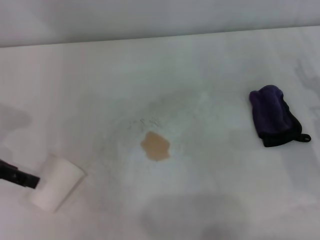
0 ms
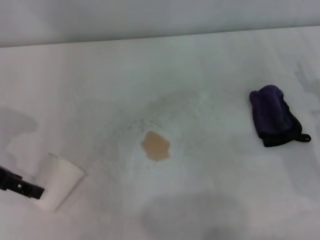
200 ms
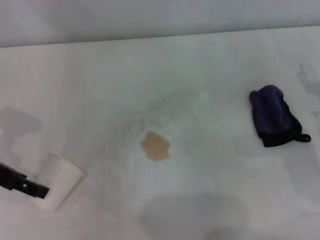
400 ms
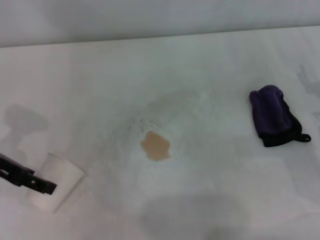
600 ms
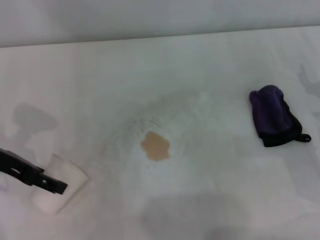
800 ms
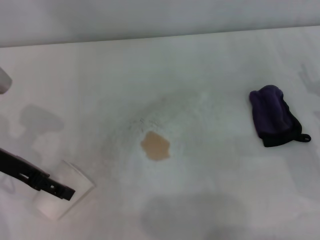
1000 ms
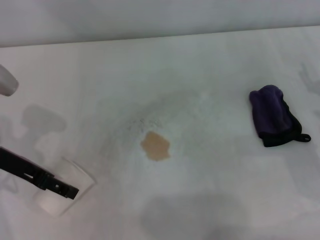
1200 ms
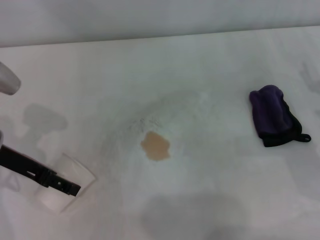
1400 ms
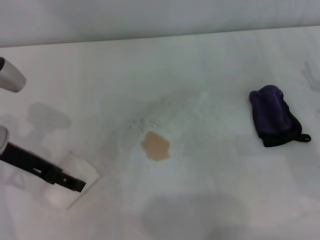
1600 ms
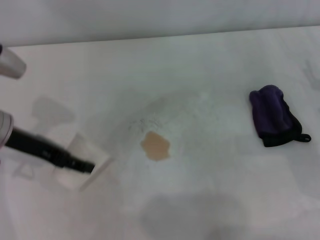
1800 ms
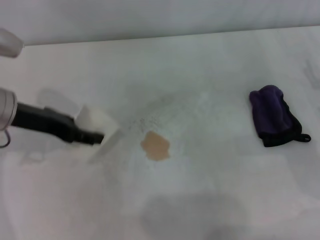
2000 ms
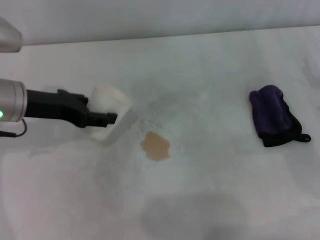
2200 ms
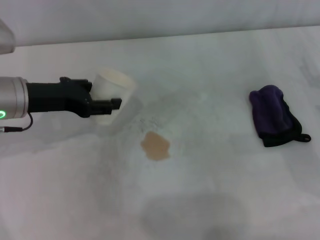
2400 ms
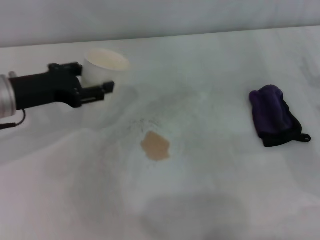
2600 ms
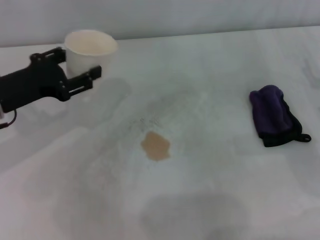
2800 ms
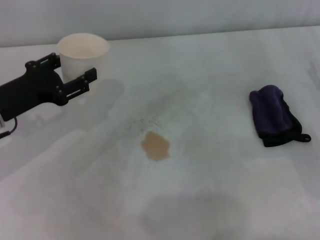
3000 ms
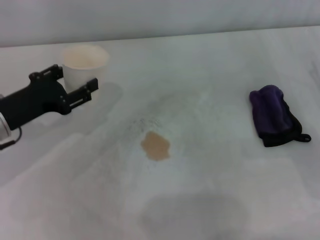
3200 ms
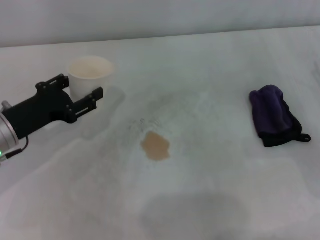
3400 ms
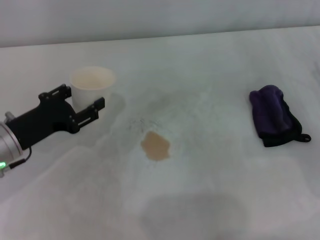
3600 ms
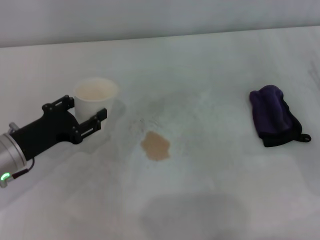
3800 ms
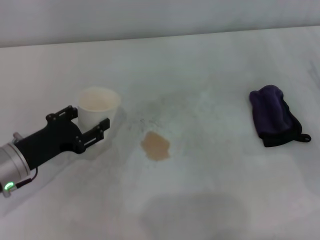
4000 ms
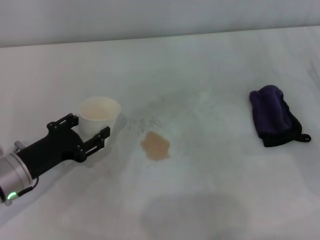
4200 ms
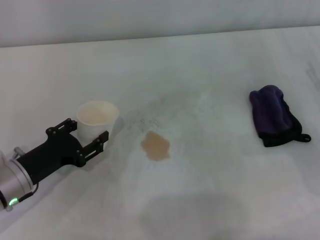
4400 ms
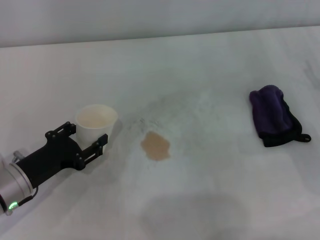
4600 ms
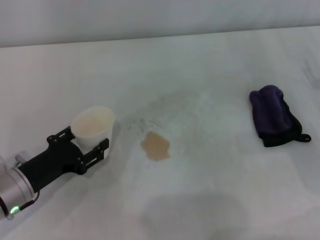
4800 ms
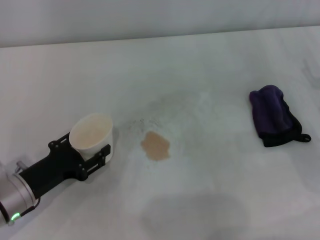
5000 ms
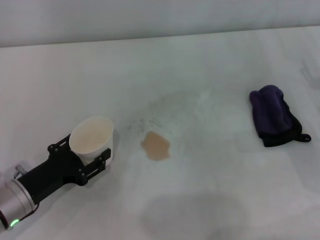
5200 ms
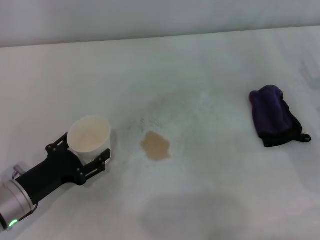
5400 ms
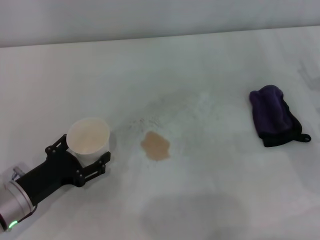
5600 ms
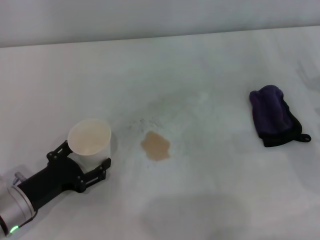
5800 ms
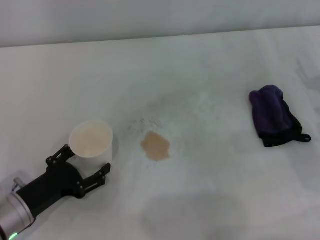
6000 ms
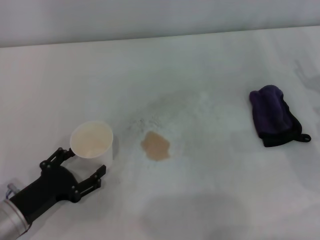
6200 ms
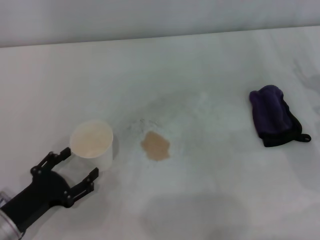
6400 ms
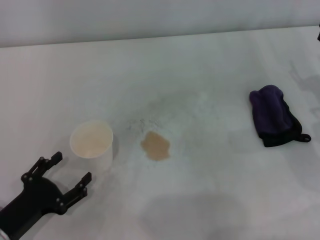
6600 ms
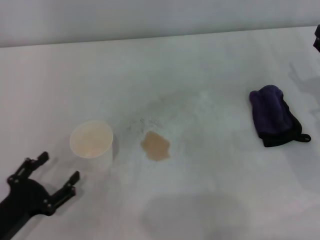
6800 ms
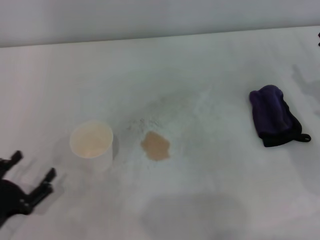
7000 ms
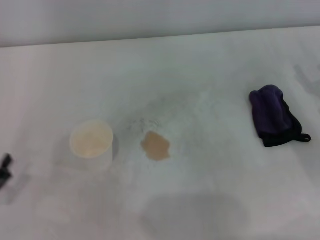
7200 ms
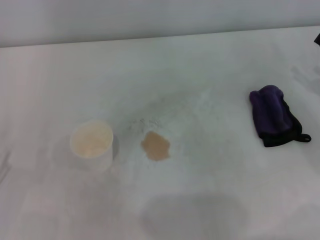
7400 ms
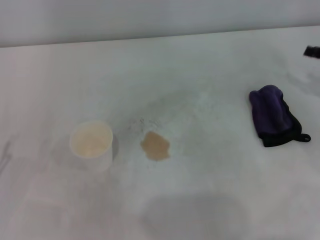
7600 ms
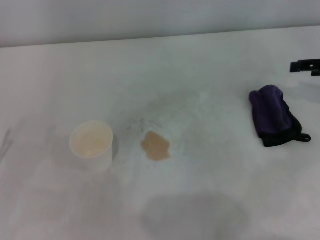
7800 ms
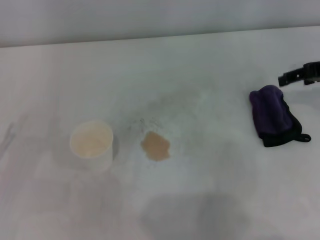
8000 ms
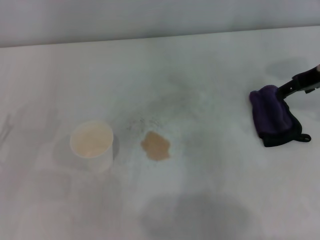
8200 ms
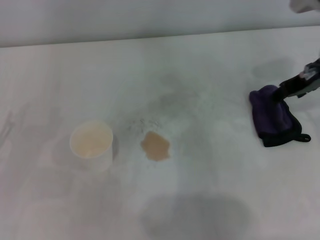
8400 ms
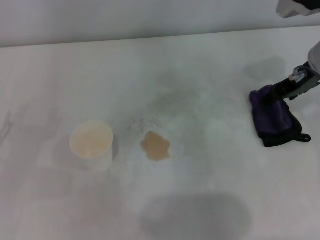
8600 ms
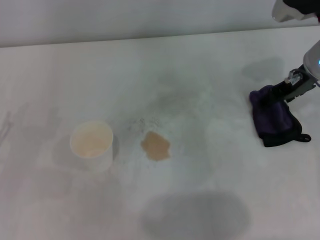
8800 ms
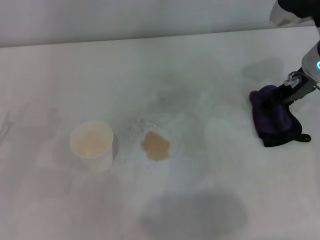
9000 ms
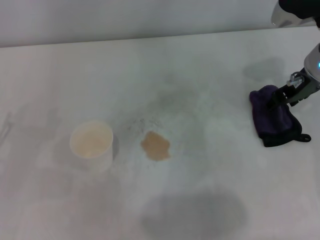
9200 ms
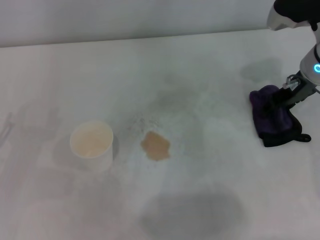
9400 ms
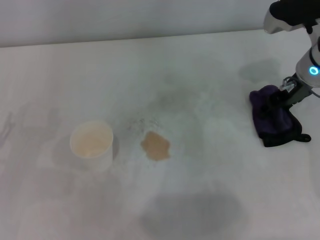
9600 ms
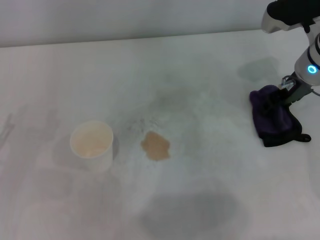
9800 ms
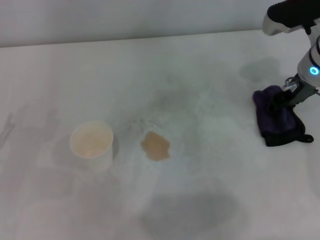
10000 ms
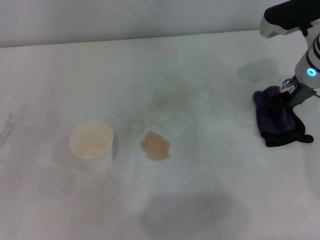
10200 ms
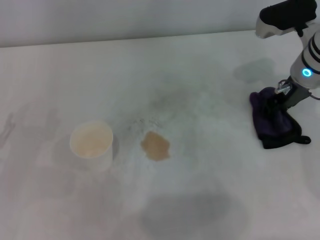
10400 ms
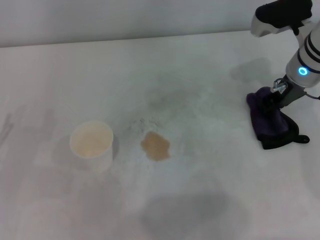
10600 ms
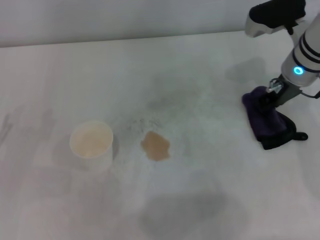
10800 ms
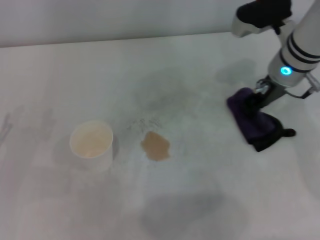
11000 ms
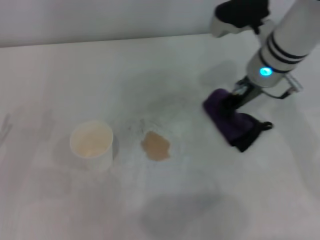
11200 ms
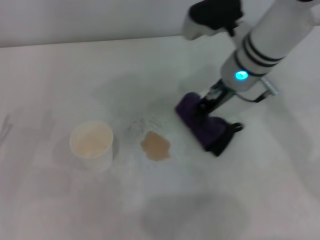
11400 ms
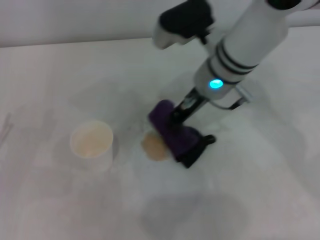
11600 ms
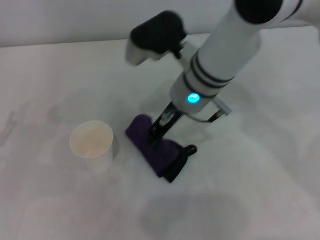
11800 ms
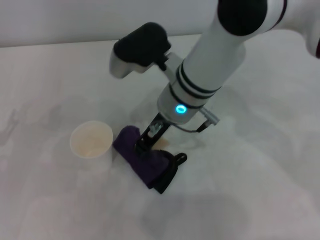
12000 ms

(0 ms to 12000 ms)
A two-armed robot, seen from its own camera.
Step, 1600 ms - 6000 ms: Stand the paper cup upright with the left gripper.
Step, 6200 ms - 10000 ms: Grasp the rag with the right gripper.
0 ms - 1600 ms: The left gripper shifts approximately 5 cm to the right.
1600 ms - 3000 ms: The left gripper closes its fingers.
3000 ms - 4400 ms: The left gripper moves downward and backward, roughly 10 cm.
4400 ms - 6000 ms: The left gripper opens up.
6000 ms - 7600 ms: The left gripper travels to the left by about 10 cm.
7600 ms - 9000 ms: The right gripper travels to the left and forward by about 15 cm.
9000 ms - 10400 ms: The right gripper closes its fingers.
10400 ms - 12000 ms: The right gripper heads to the left, covering some 20 cm, and closes.

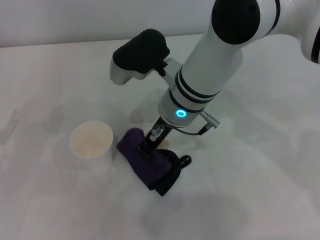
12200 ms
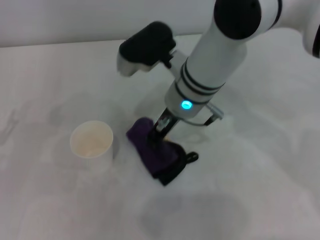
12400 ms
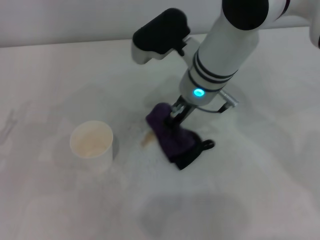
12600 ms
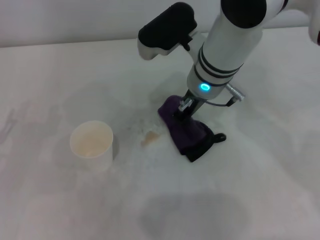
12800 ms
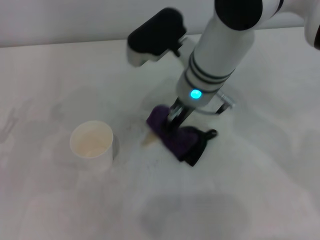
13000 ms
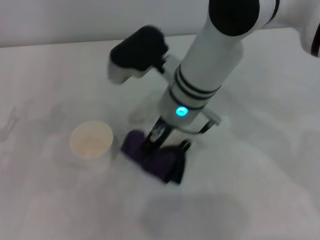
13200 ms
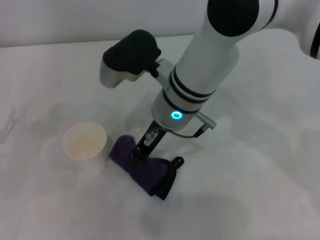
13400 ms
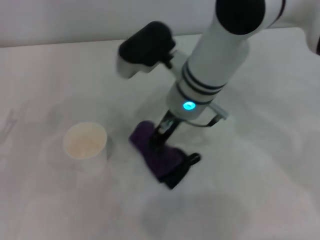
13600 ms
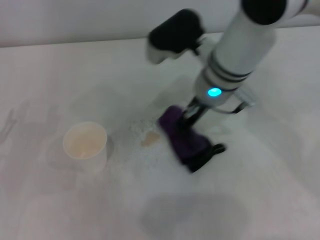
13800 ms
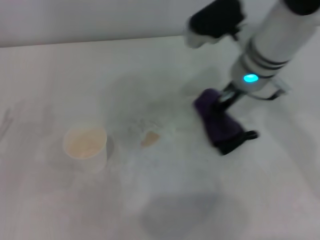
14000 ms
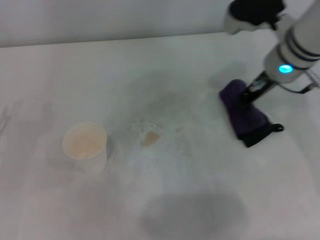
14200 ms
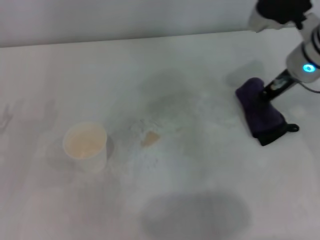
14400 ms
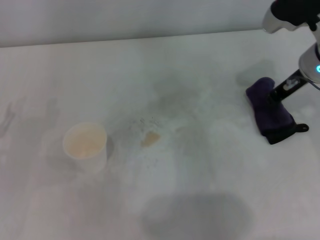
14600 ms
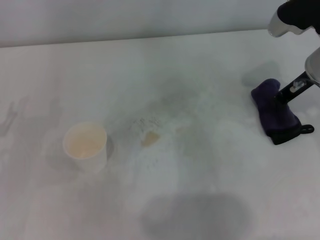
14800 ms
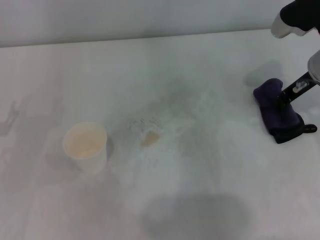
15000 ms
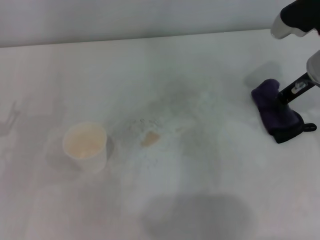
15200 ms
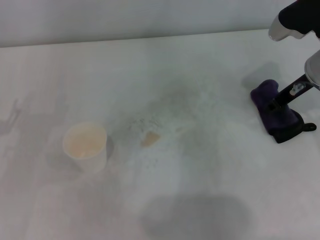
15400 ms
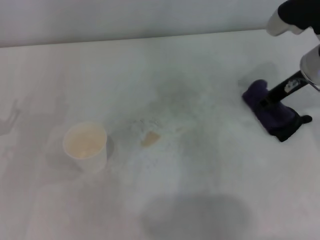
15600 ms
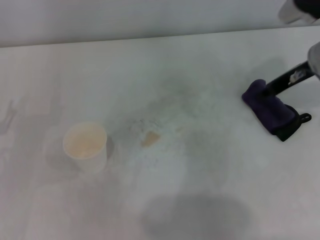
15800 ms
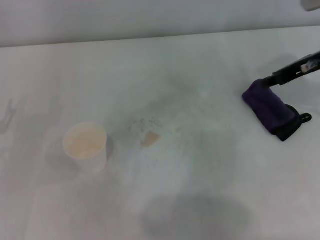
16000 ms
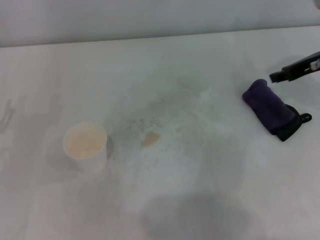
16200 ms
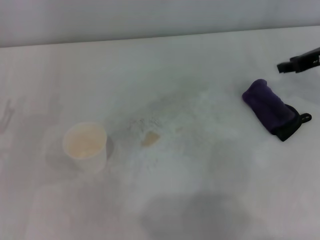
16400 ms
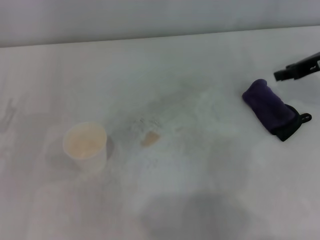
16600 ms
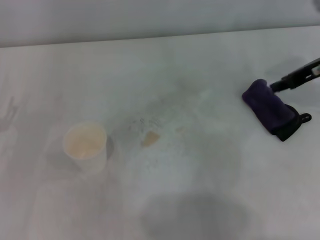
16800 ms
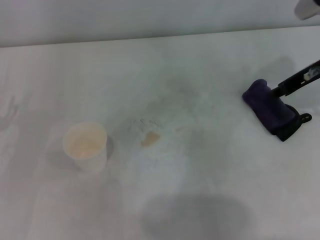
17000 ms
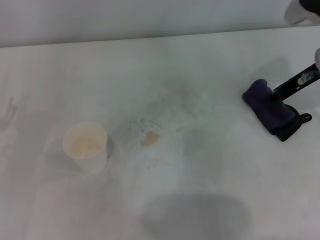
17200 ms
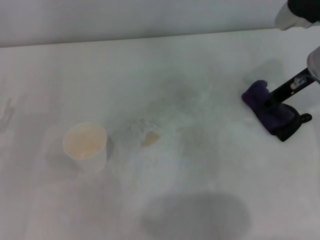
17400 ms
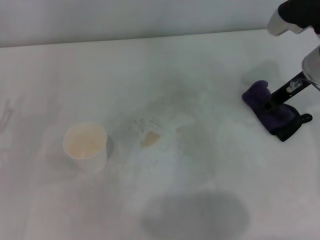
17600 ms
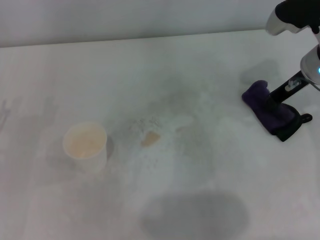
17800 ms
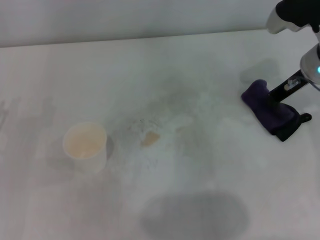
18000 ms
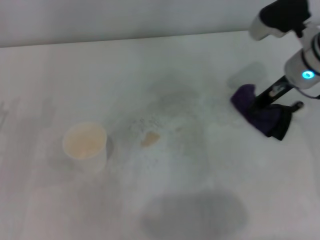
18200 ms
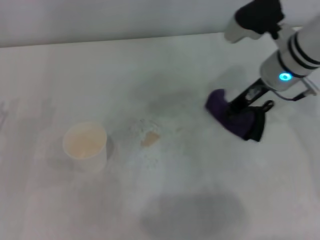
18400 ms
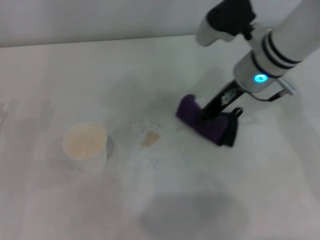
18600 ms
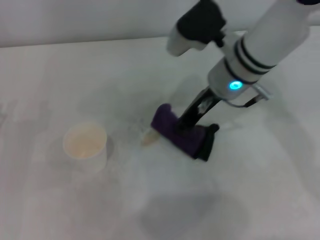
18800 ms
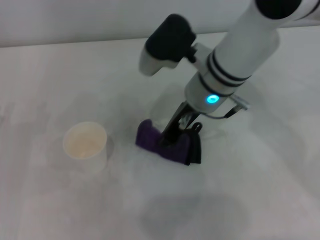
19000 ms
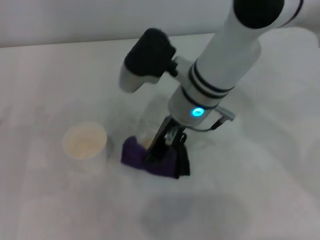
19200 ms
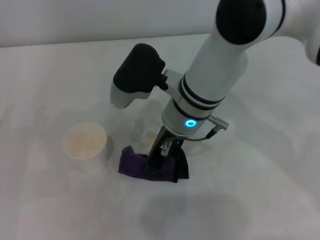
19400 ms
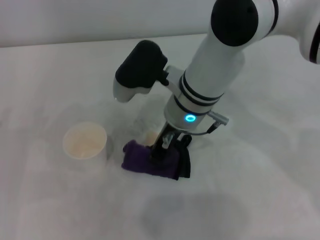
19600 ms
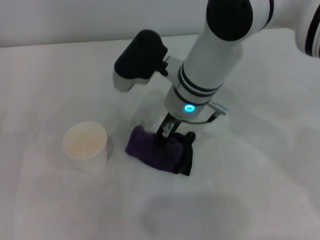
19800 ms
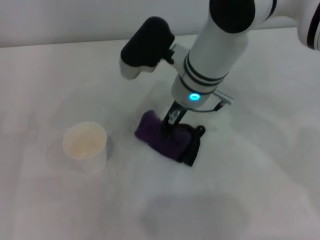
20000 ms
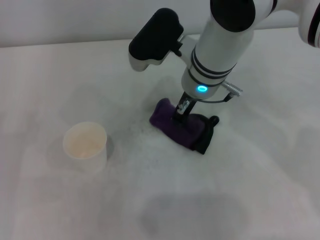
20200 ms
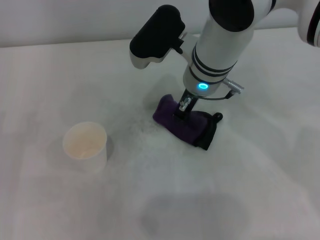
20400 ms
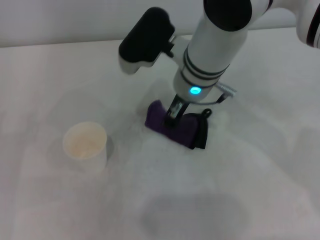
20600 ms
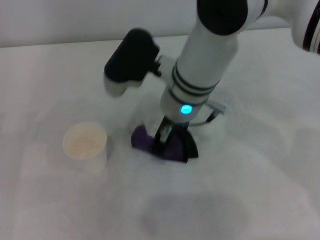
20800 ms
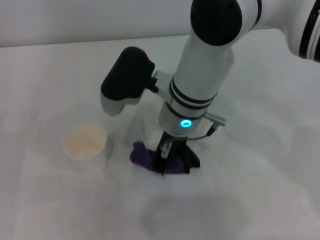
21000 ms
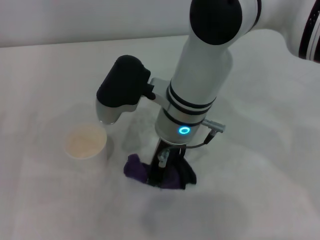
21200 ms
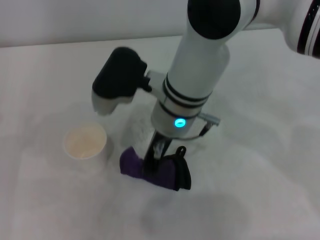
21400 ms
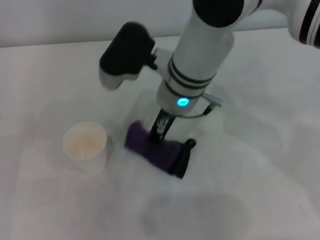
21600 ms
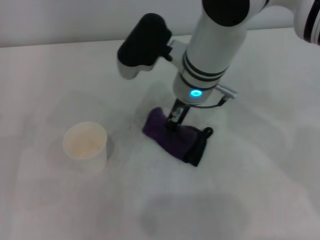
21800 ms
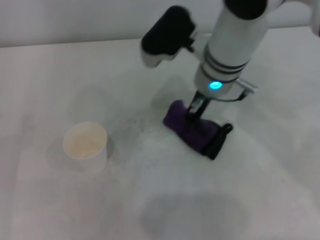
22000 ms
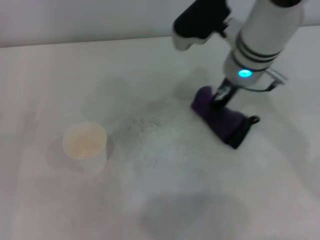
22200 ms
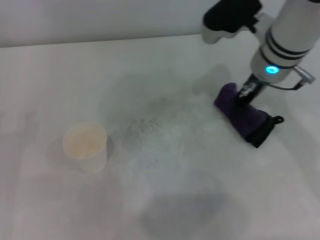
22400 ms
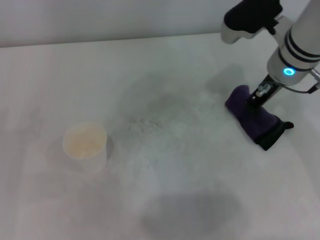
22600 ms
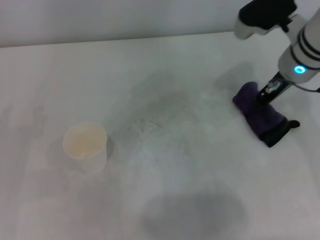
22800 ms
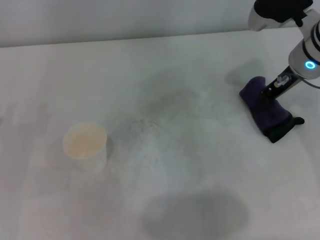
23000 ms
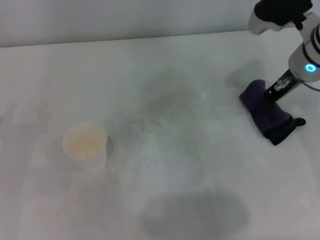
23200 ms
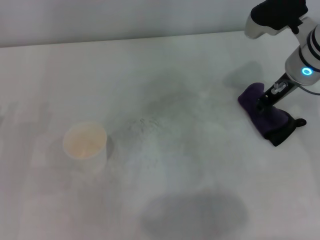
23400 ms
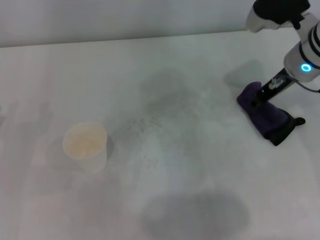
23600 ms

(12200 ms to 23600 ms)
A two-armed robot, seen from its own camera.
Step, 12200 ms - 22400 ms: Wipe the stains off the table with the right gripper.
Step, 22600 ms - 23200 ms: Place the rag on the table with the right gripper.
12200 ms - 13600 ms: The grippers stay close to where they were, moving slightly.
13600 ms - 15000 ms: The right gripper goes some 20 cm to the right.
15000 ms - 16400 ms: The right gripper heads to the right, covering approximately 5 cm.
16400 ms - 17800 ms: The right gripper travels to the left by about 5 cm.
17800 ms - 19400 ms: The right gripper travels to the left by about 20 cm.
20800 ms - 22200 ms: The right gripper heads to the right, covering some 10 cm.
22200 ms - 23600 ms: The right gripper goes approximately 10 cm to the right.
